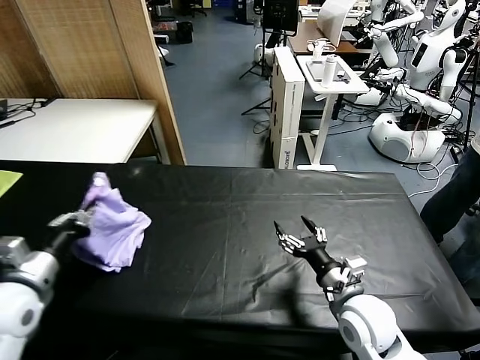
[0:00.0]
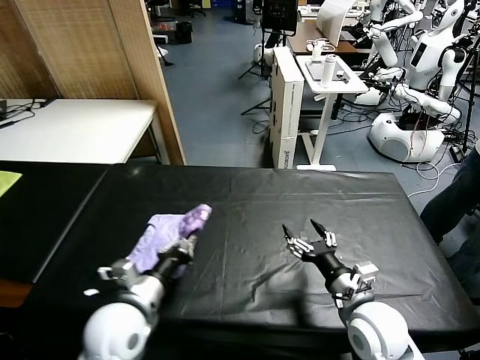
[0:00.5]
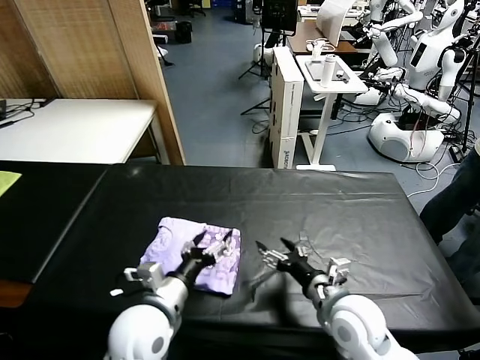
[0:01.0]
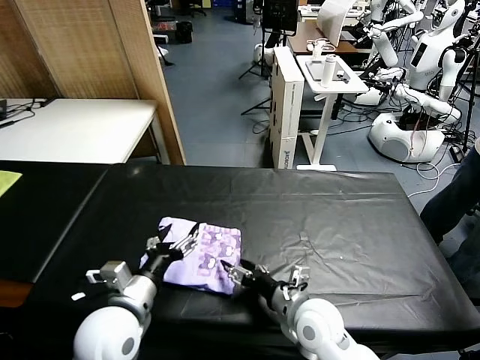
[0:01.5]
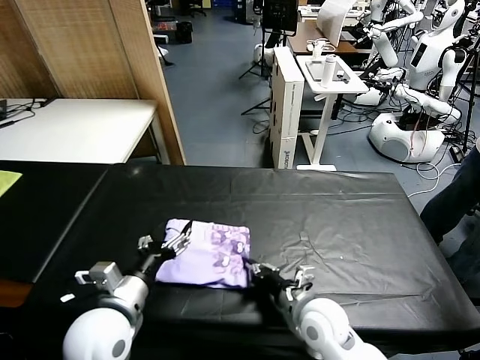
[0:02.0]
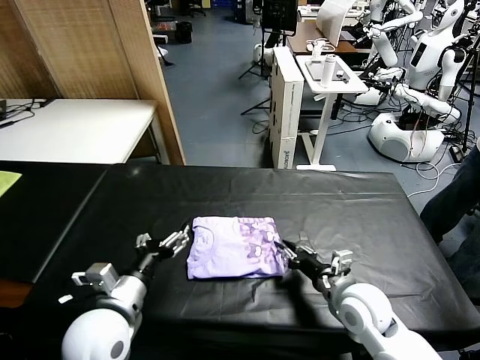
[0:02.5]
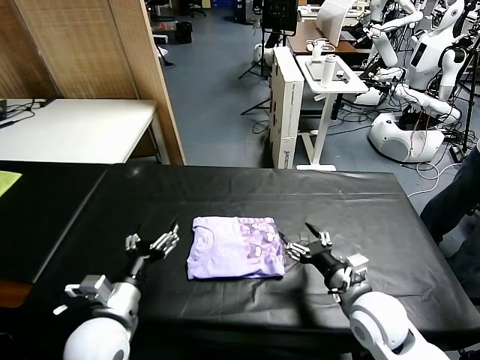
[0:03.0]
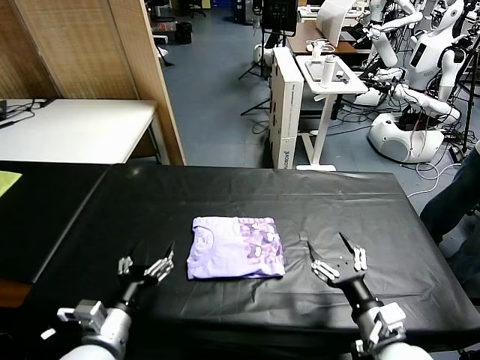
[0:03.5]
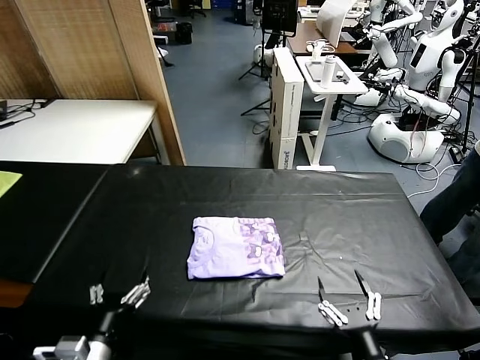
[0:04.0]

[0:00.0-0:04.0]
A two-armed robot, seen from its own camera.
Task of the whole recording: fold and organize the clothes.
Step, 0:01.5 to 0:02.5: Drag the clothes to the center of the table.
0:00.0 to 0:02.0: The right gripper goes approximately 10 cm to the left and downward, and closes its fingers; the left gripper goes some 15 cm to the right, and opens up.
0:02.0 to 0:04.0: The right gripper is displaced backward and to the right by some 20 cm, and opens, while the left gripper is displaced backward and downward by roughly 10 cm.
